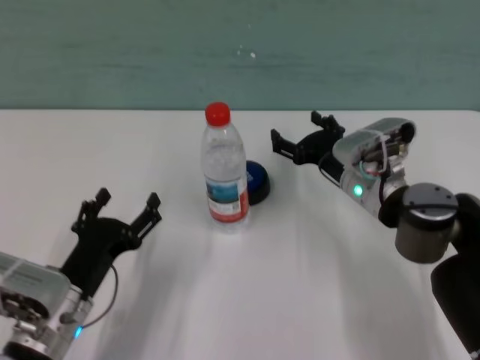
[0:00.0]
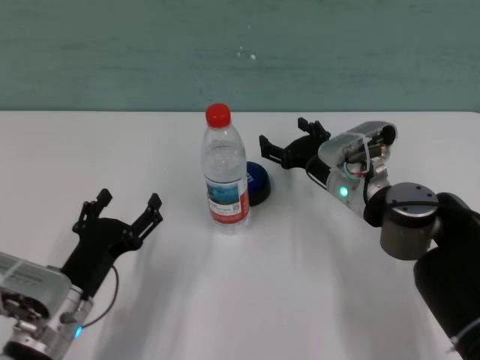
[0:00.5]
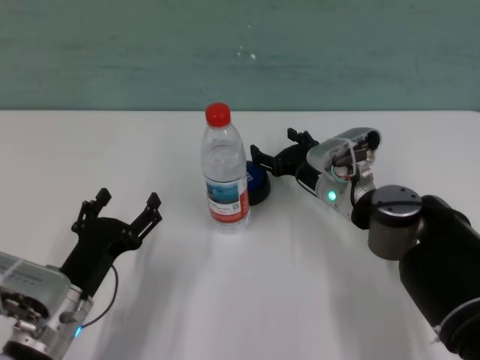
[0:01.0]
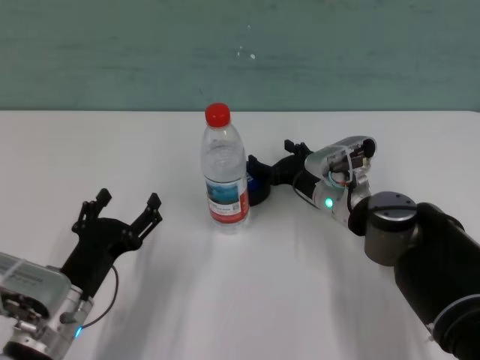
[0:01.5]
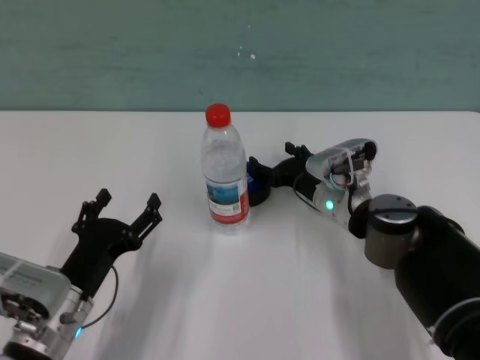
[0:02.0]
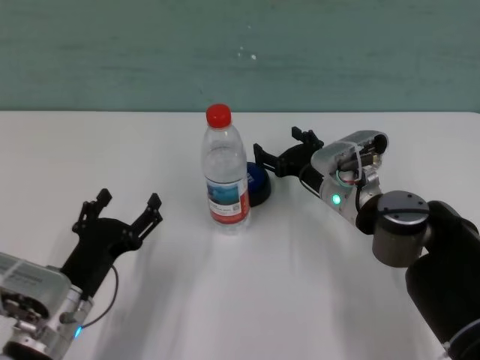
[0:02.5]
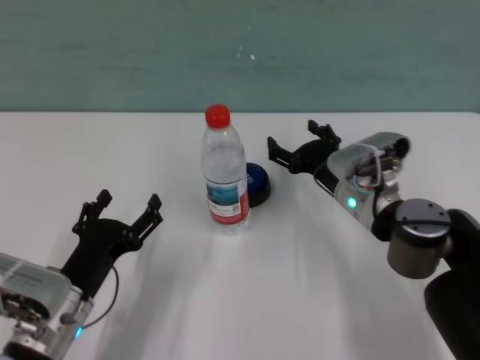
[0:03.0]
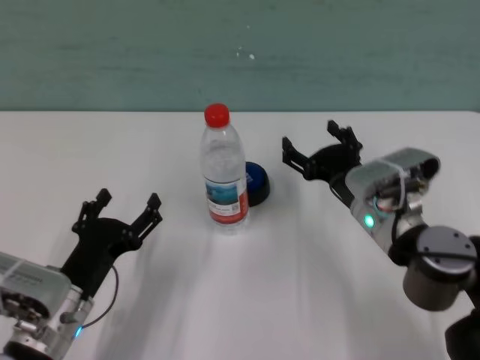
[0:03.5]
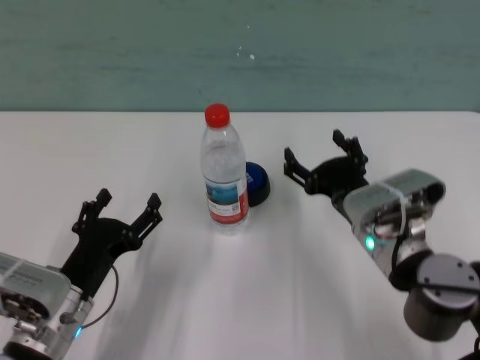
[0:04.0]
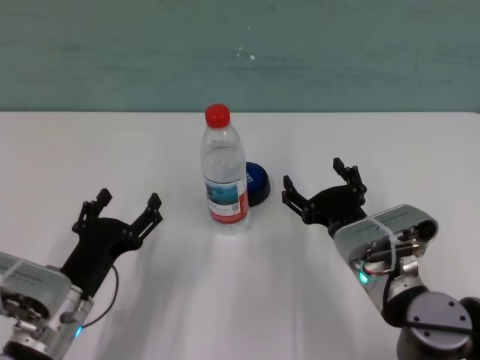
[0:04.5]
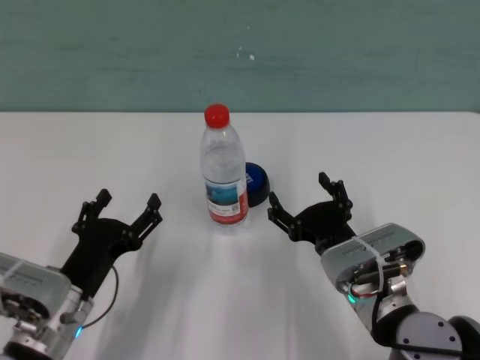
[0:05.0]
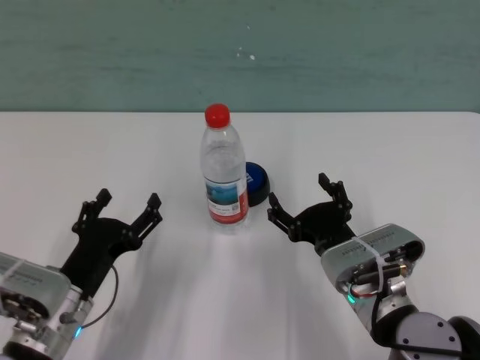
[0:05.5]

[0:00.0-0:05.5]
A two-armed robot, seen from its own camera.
Task of the whole recording: after avoiding the water bottle on the table, press the button.
Step, 0:00.0 to 0:02.0: Press the button blocked by the bottle with right gripper.

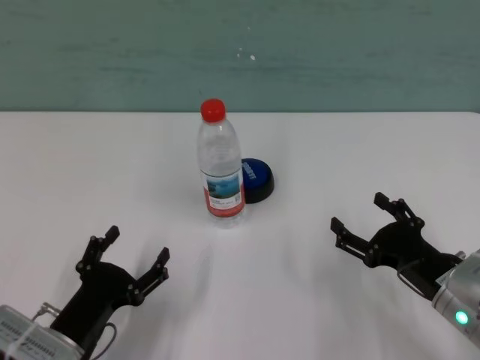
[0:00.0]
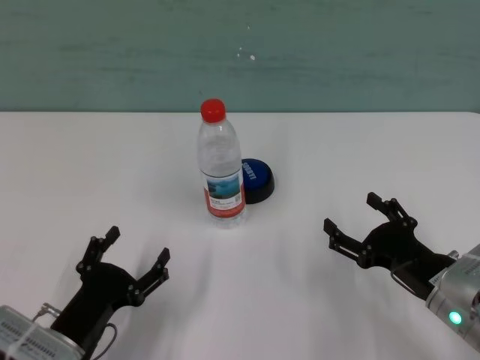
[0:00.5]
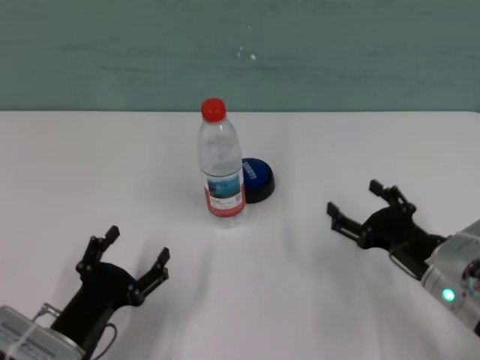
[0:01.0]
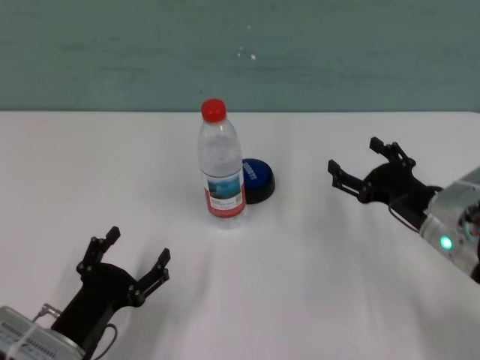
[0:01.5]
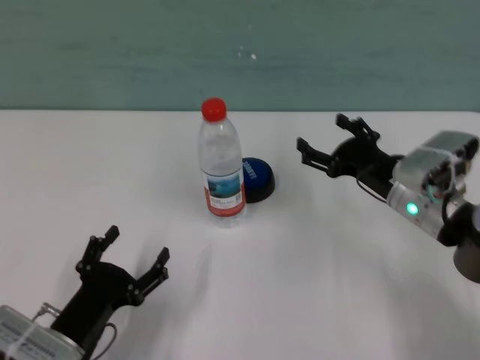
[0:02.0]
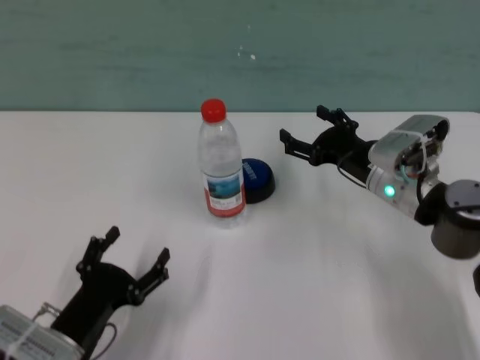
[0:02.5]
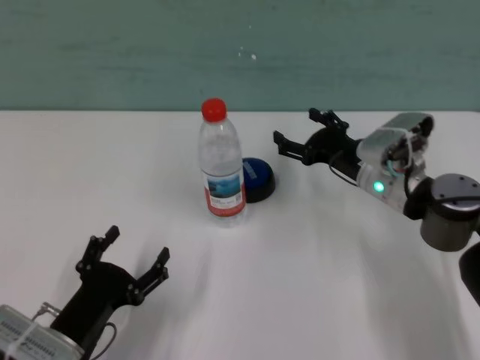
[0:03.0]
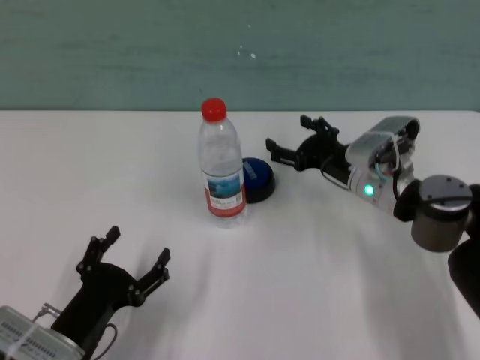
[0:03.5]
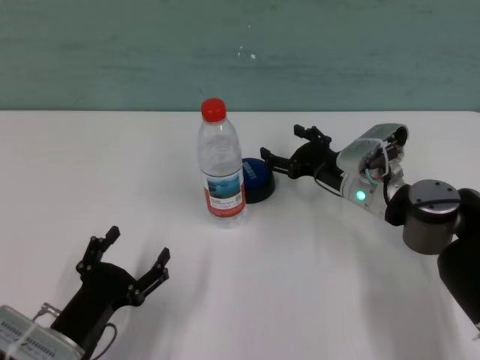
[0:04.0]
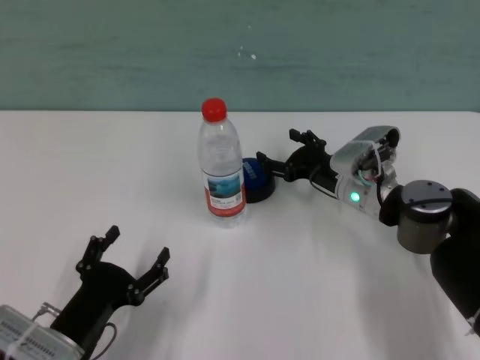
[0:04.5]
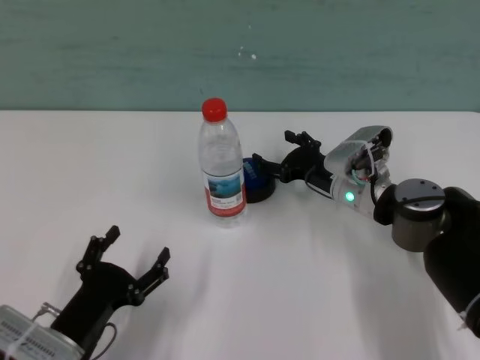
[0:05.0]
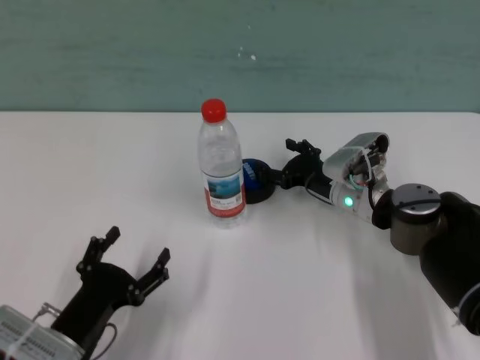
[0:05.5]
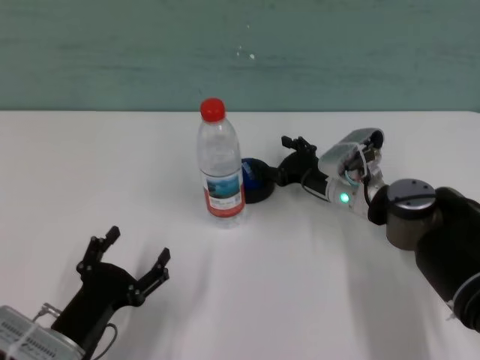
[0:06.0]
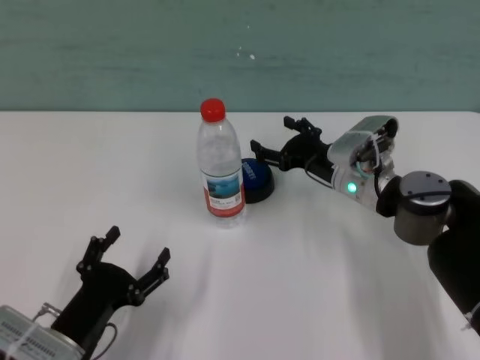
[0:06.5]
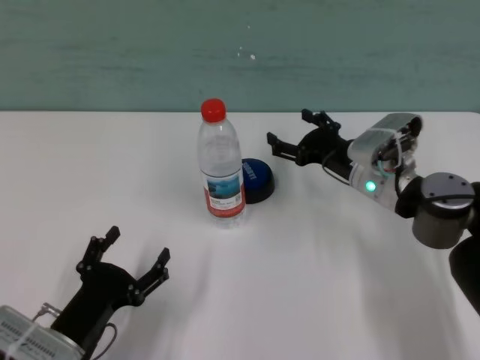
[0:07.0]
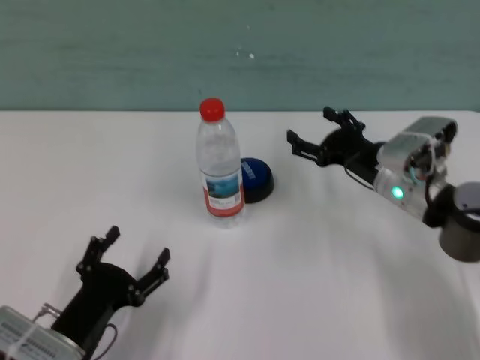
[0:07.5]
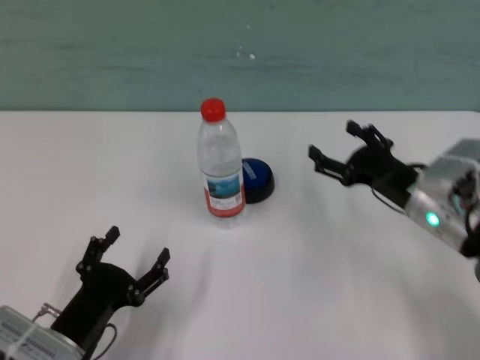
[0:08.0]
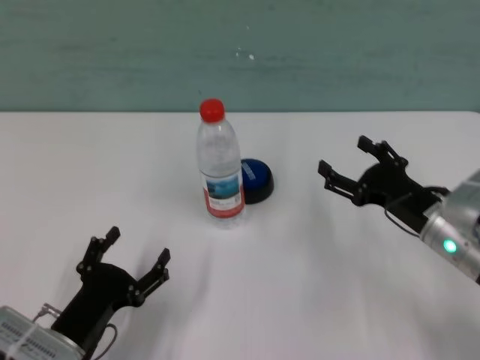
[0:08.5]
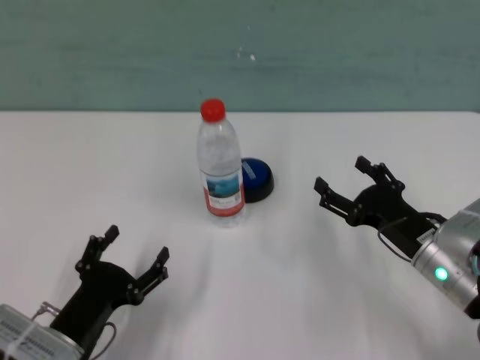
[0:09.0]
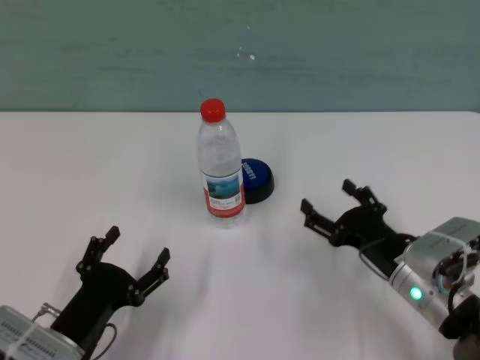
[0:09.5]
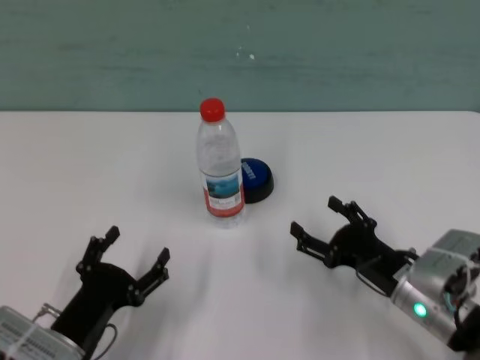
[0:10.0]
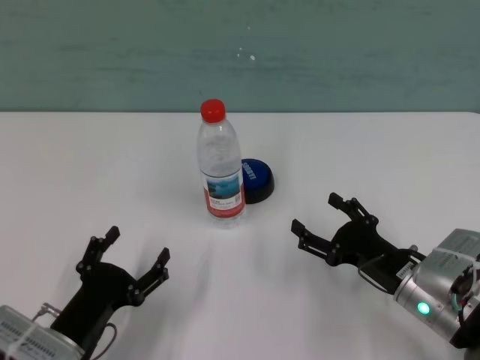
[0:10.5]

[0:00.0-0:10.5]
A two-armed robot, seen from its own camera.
Task of the whole recording: after avoiding the water bottle on the table, press the button.
Step, 0:00.0 to 0:06.0: Press the button blocked by the bottle with right gripper.
